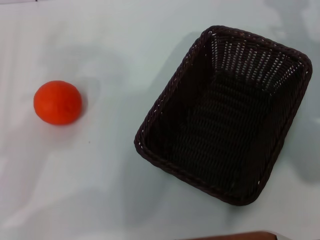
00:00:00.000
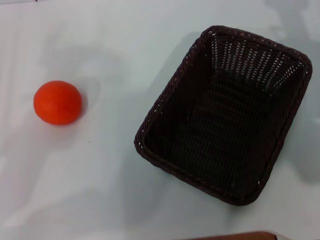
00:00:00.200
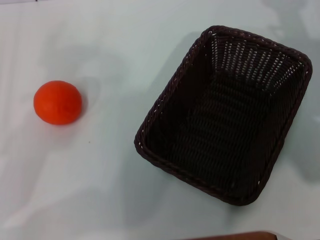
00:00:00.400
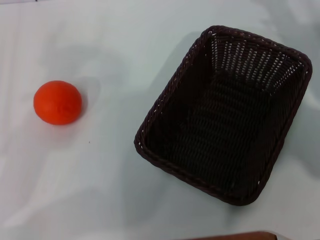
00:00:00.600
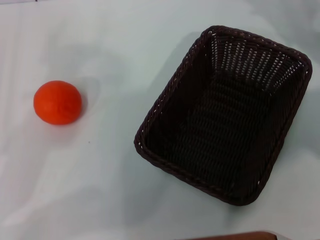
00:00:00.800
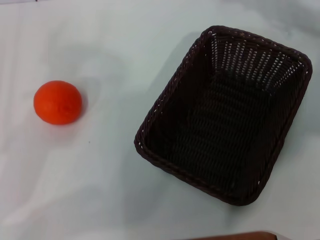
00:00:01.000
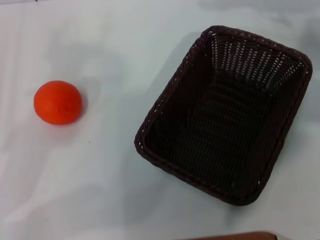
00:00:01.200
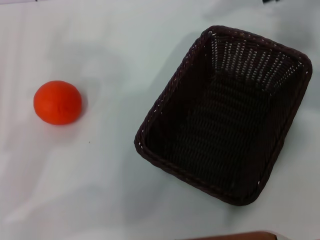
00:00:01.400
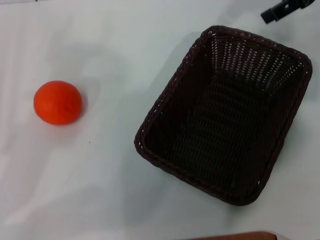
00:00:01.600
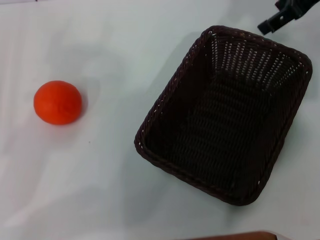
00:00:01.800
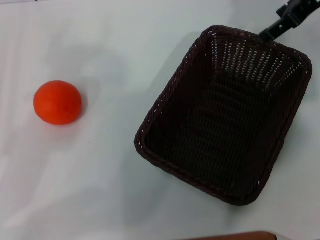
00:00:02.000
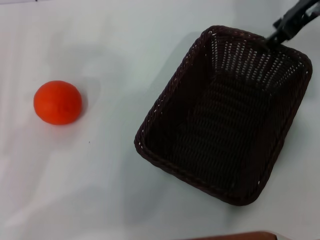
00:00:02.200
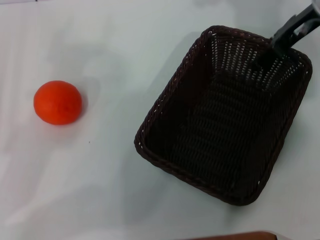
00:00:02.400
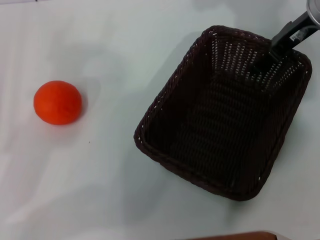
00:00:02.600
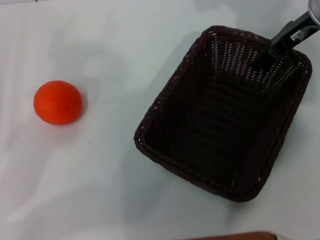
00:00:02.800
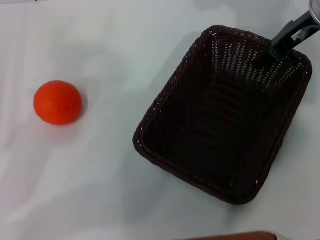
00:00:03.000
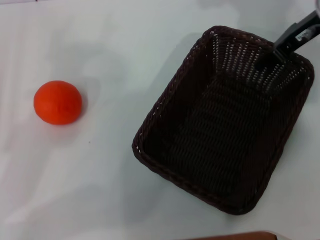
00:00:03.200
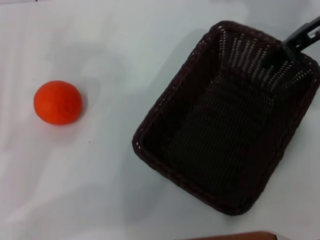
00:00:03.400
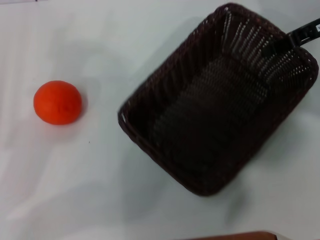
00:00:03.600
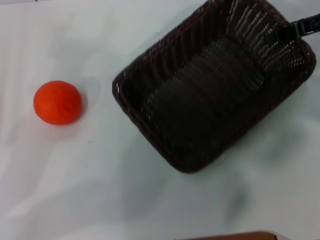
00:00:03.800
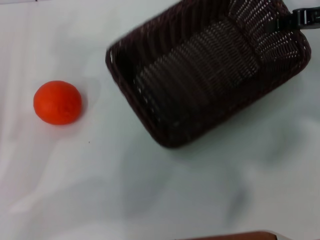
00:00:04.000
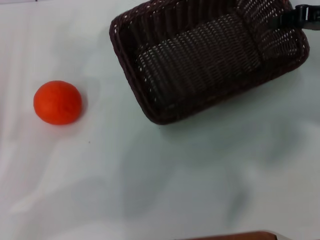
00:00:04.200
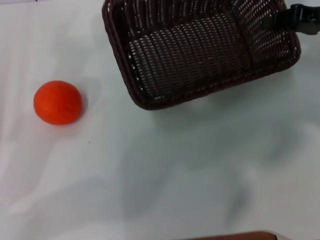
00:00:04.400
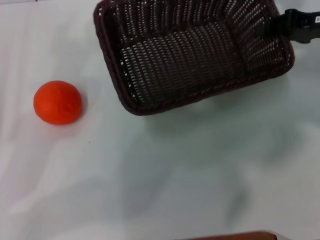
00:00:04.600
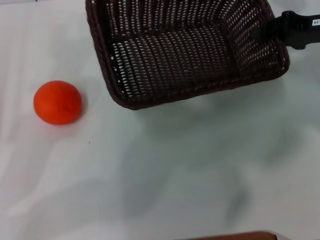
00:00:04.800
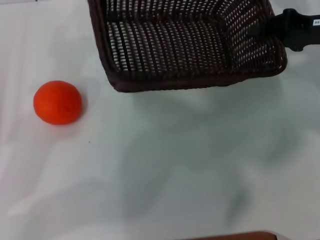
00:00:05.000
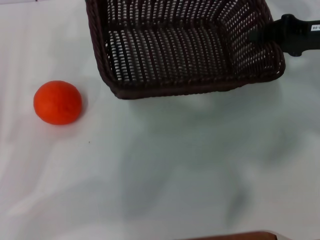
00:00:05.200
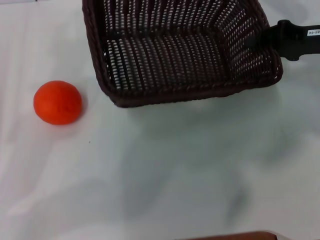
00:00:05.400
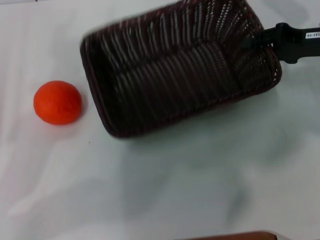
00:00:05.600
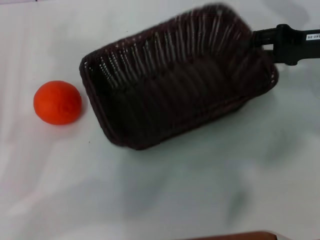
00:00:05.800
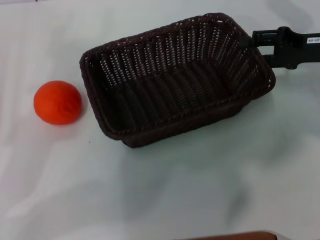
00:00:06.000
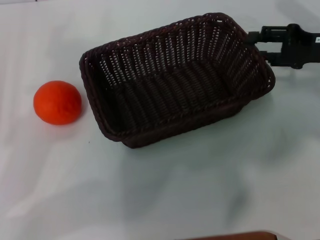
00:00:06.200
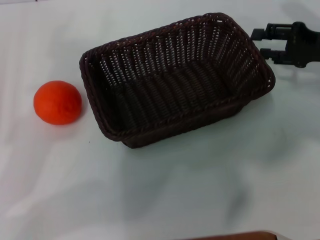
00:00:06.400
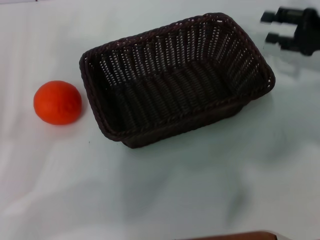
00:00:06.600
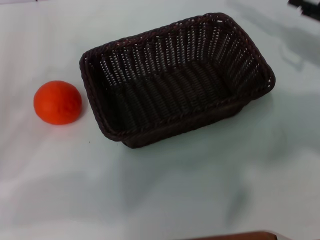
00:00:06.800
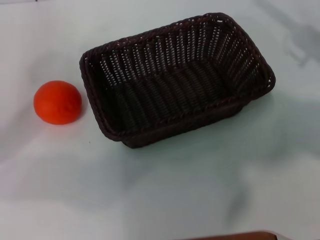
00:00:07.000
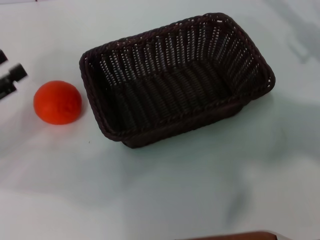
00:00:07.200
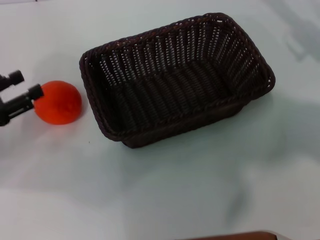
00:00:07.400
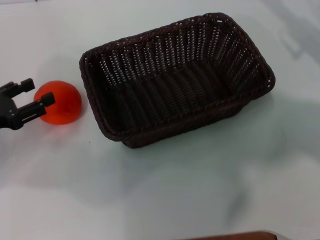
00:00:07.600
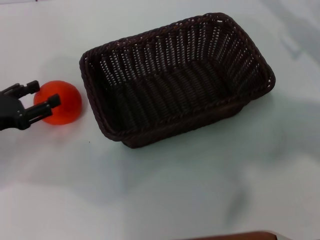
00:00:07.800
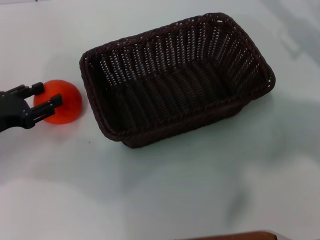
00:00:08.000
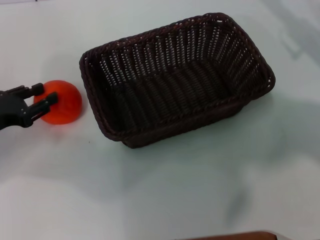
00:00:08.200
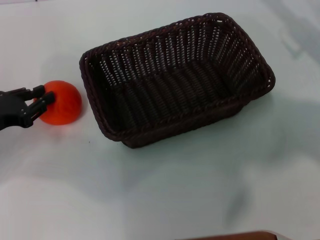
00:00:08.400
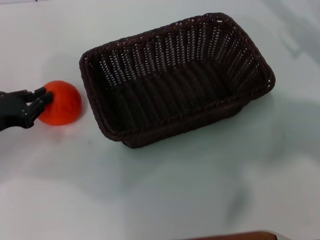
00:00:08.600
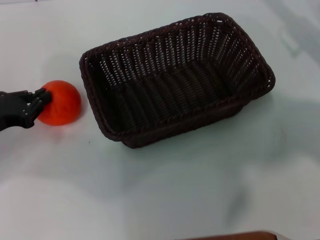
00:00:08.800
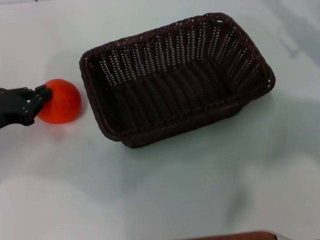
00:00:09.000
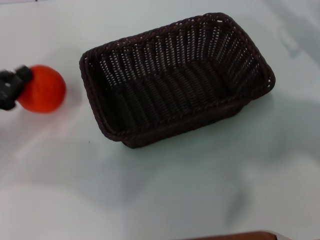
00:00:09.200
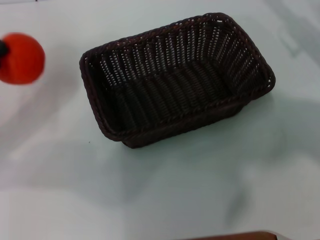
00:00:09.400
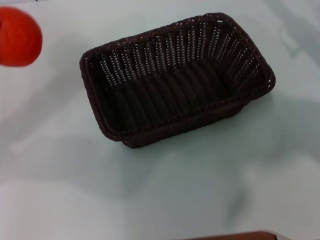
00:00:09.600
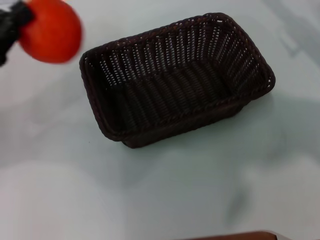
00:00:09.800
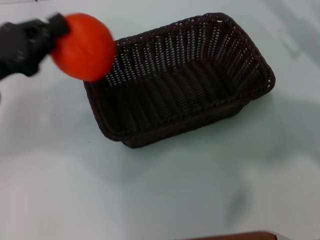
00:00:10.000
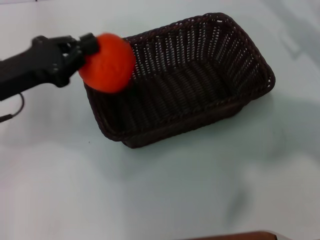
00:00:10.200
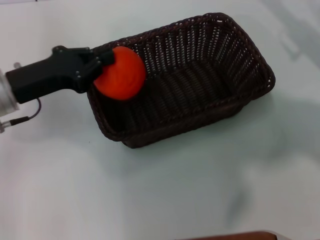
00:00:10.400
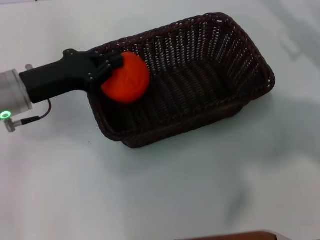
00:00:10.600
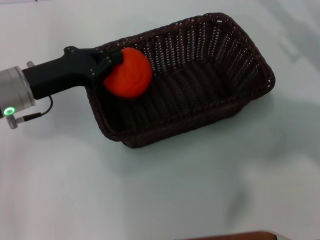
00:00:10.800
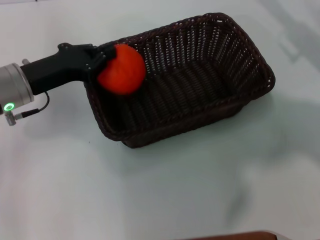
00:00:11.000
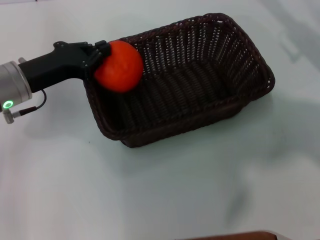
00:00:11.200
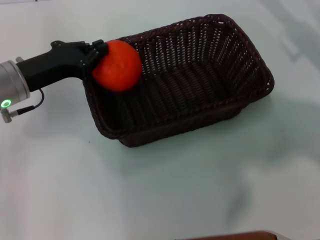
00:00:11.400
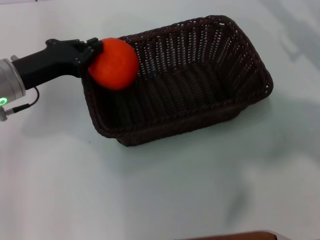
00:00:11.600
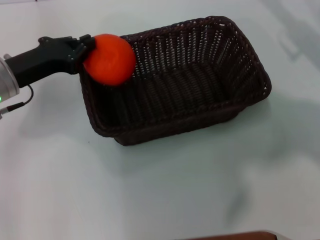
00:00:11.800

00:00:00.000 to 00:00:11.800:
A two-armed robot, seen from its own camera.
Task of the whole recording: the right gripper pick up the black basket and place it horizontally in the middle of the table, the left gripper pick up the orange and place it into the black basket.
Step, 00:00:00.000 to 00:00:03.800: Pick up the dark basket with the right gripper.
Step, 00:00:04.000 to 00:00:06.600: Place the dark basket in the center of view with the right gripper.
Step, 00:00:06.800 to 00:00:09.200: Pick up the orange with the left gripper.
00:00:00.000 to 00:00:01.400: The right gripper goes approximately 20 cm upward and forward.
00:00:01.400 to 00:00:03.000: The right gripper moves downward, some 10 cm, and closes.
00:00:03.000 to 00:00:04.400: The right gripper travels to the right by about 10 cm, and closes up.
00:00:04.400 to 00:00:06.000: The right gripper opens up.
00:00:06.000 to 00:00:07.400: The right gripper shifts by some 5 cm.
00:00:07.400 to 00:00:08.800: The left gripper closes its fingers.
00:00:08.800 to 00:00:10.400: The left gripper moves to the right, about 10 cm.
00:00:10.400 to 00:00:11.800: The grippers make only small movements.

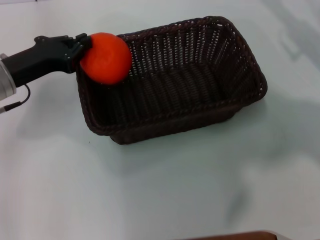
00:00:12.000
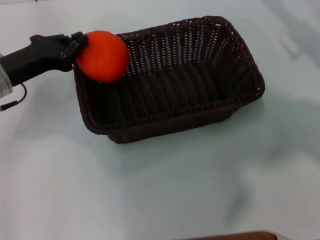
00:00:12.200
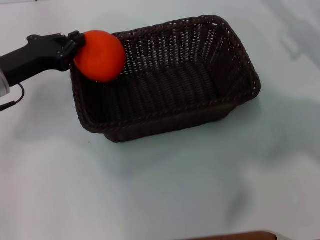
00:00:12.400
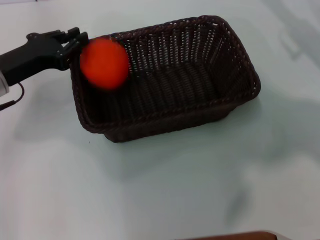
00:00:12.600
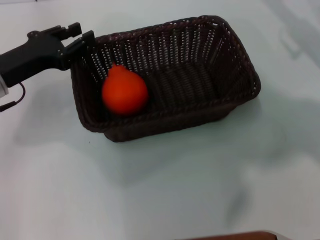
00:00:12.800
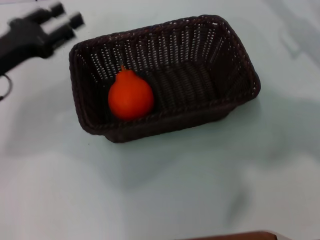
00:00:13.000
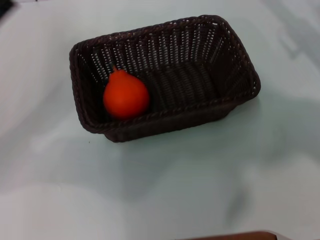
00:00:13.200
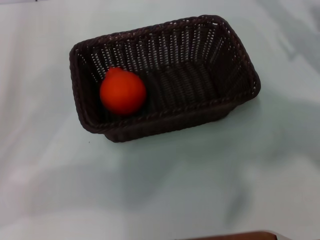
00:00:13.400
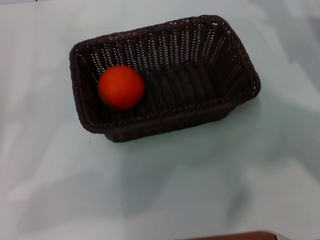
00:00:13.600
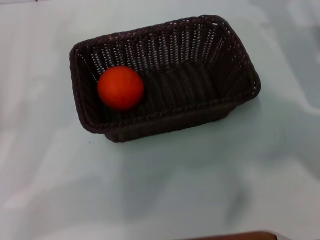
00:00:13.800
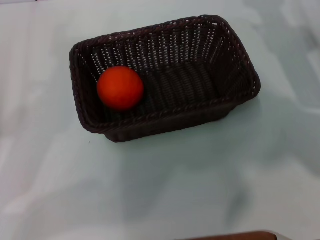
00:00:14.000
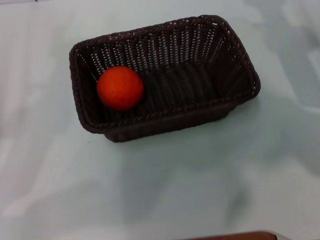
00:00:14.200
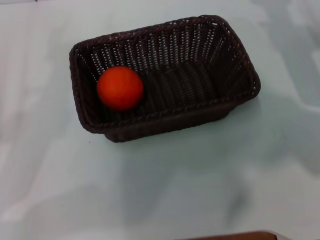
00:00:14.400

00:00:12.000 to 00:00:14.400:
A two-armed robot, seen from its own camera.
Task of the whole recording: the right gripper pick up the black basket and place it horizontally in the middle of the table, the left gripper pick up the orange and place it into the black basket.
00:00:12.000 to 00:00:13.200: The left gripper goes approximately 10 cm backward and to the left, and opens up.
00:00:13.200 to 00:00:14.400: The left gripper travels backward by roughly 10 cm. Meanwhile the right gripper changes place by roughly 5 cm.
